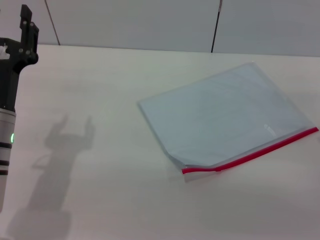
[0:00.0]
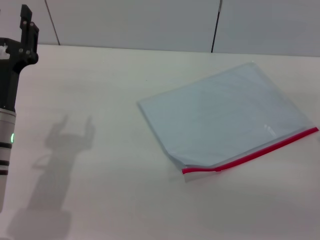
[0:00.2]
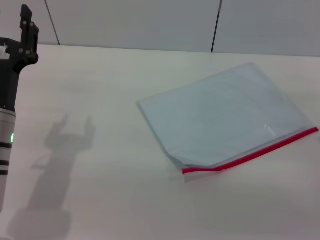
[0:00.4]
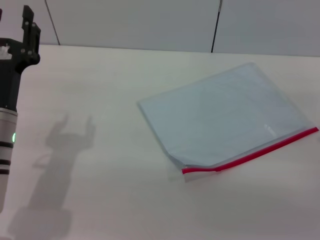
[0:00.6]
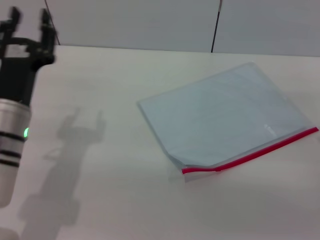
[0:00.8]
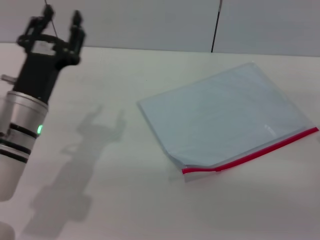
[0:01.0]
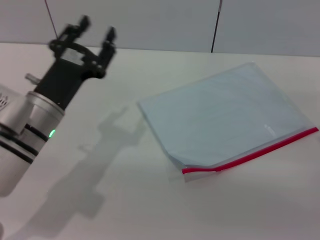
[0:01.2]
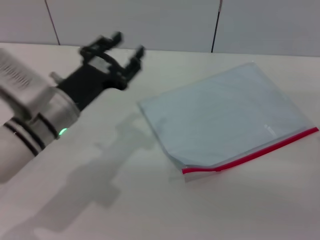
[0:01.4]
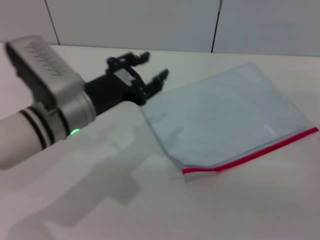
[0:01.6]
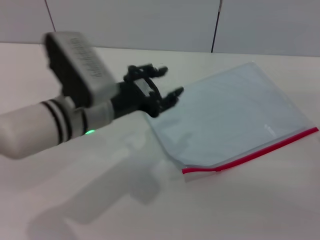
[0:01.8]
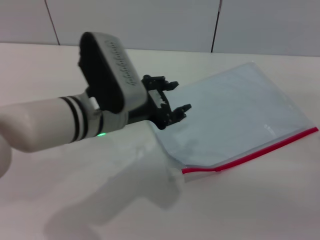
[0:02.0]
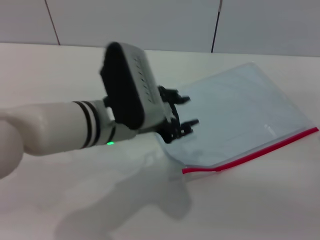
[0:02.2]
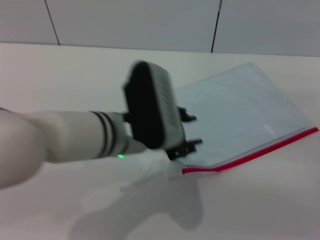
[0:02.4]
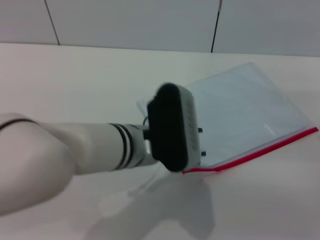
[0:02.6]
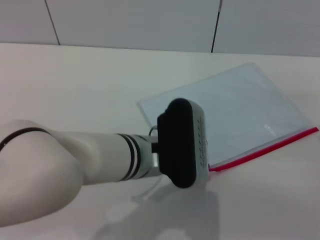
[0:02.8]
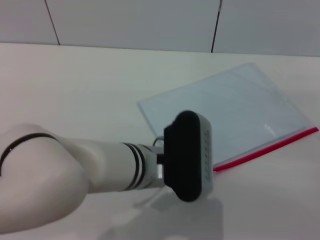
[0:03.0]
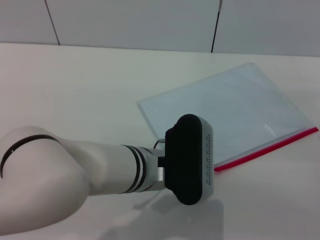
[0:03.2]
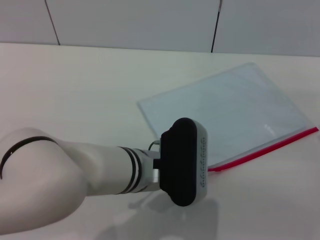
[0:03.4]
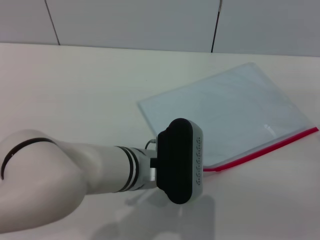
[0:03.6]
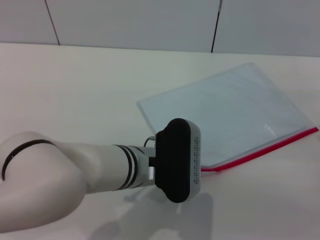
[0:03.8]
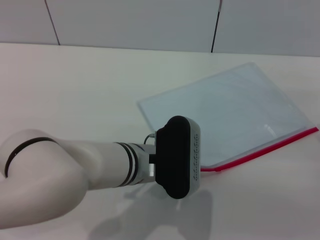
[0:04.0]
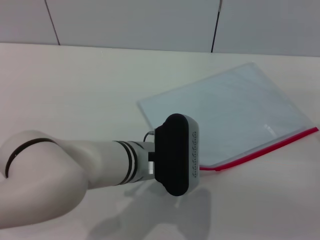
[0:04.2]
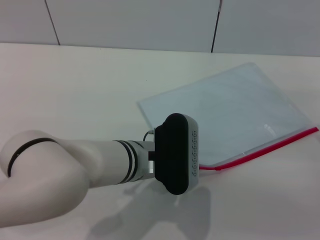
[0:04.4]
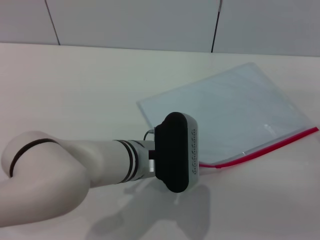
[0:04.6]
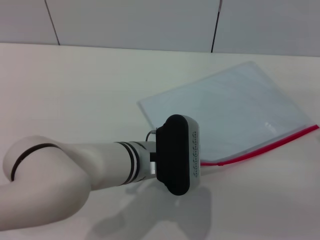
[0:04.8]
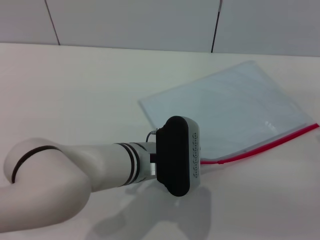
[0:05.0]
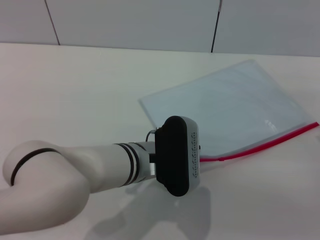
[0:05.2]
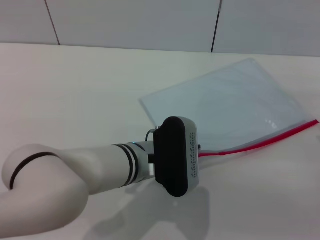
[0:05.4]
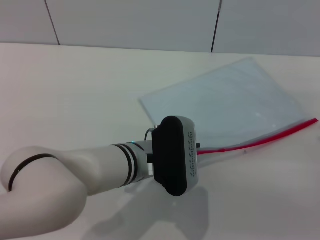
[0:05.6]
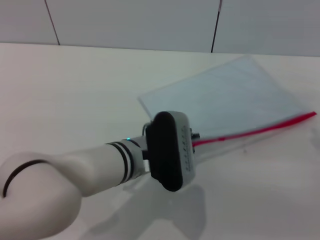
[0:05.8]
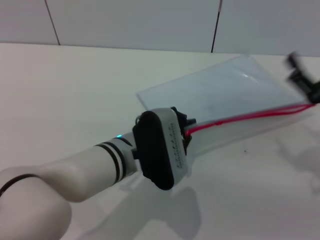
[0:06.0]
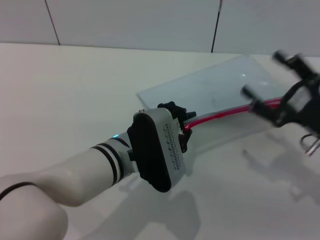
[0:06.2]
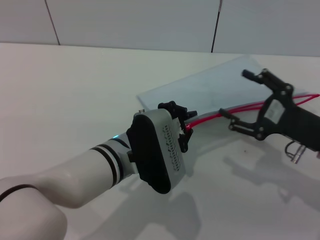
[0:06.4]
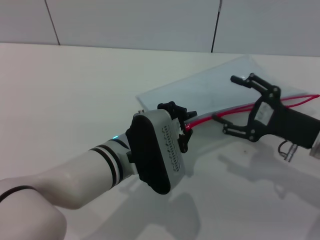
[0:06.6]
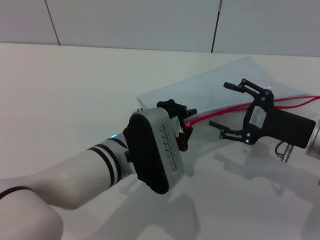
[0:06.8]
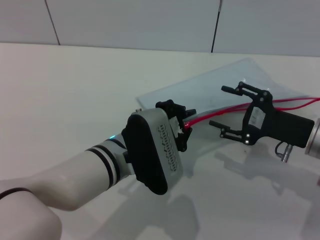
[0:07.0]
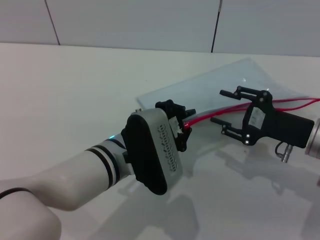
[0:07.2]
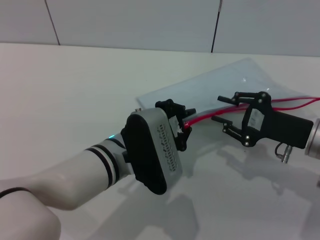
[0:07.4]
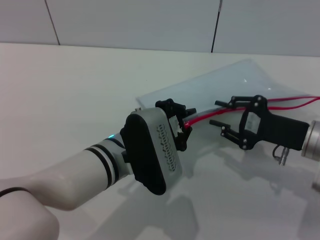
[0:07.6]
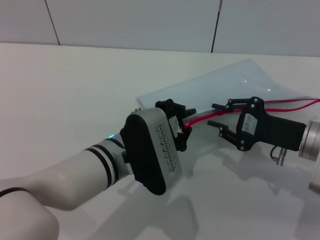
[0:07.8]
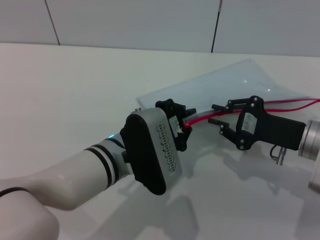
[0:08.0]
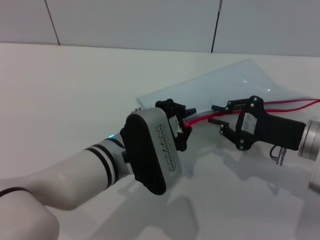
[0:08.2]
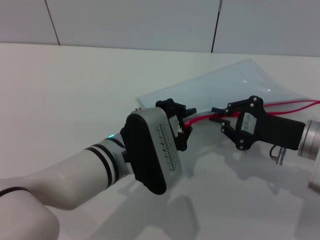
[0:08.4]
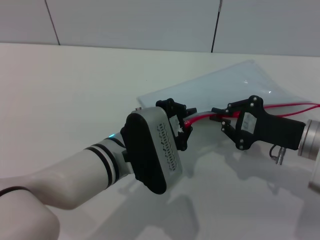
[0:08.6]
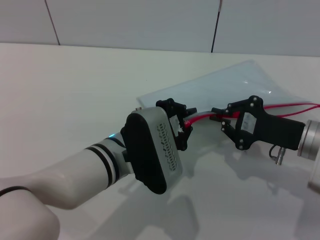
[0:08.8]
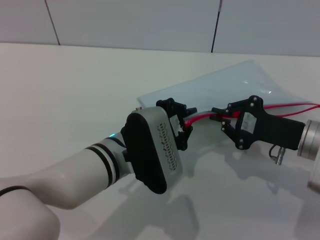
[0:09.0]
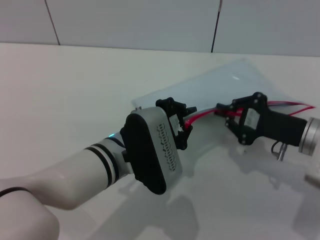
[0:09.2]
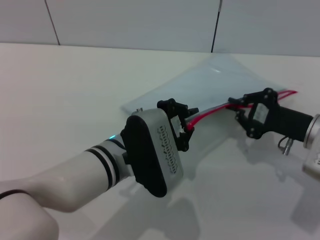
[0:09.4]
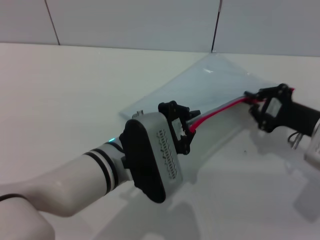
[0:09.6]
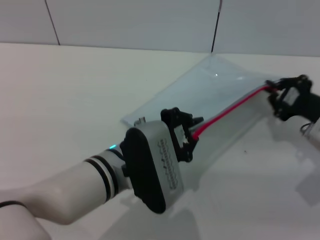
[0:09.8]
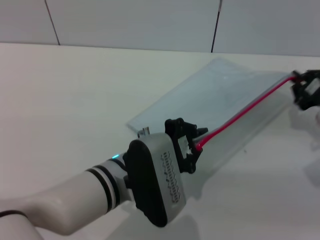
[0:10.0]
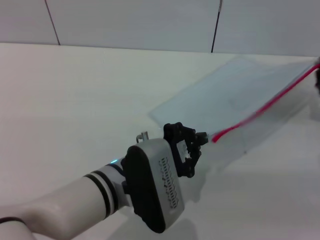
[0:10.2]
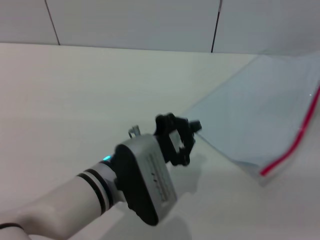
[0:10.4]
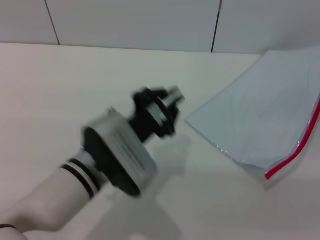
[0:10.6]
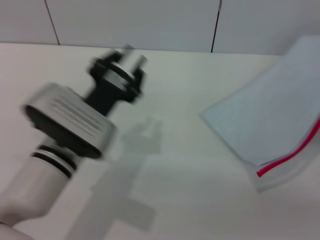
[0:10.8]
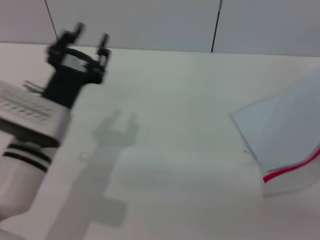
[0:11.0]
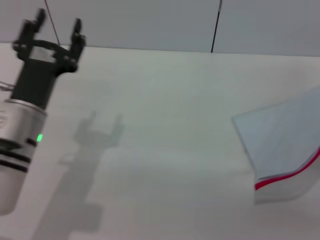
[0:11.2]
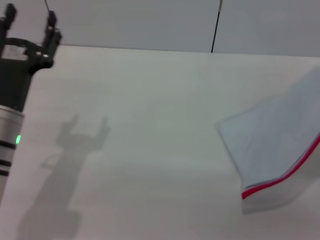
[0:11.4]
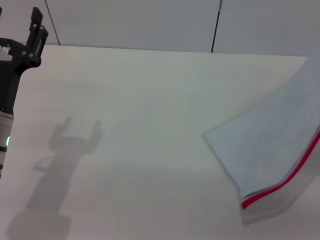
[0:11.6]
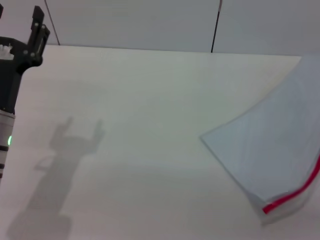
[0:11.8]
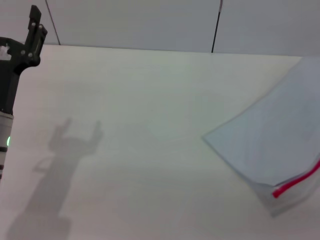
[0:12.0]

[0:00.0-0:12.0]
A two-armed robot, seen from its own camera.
Step, 0:00.0 to 0:06.0: Pick up the transparent plastic bag with the left gripper.
0:00.0 to 0:01.6: The left gripper travels to the right by approximately 5 cm.
0:01.6 to 0:03.0: The left gripper travels to the right by some 10 cm.
0:03.0 to 0:04.4: The grippers stay close to where they were, moving slightly.
0:04.4 to 0:06.0: The left gripper closes its fingers.
0:06.0 to 0:07.6: The right gripper changes place by approximately 5 cm, and closes.
0:07.6 to 0:09.0: The right gripper closes up.
0:09.0 to 0:10.4: The right gripper heads to the right and forward, covering about 10 cm.
0:10.4 to 0:12.0: The right gripper is displaced backward by approximately 10 cm, and opens up. Meanwhile the left gripper is displaced to the left by approximately 15 cm, and opens up.

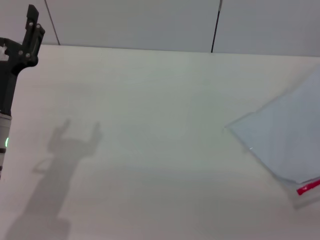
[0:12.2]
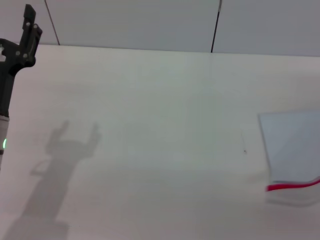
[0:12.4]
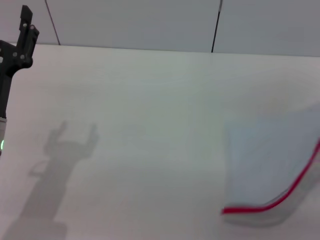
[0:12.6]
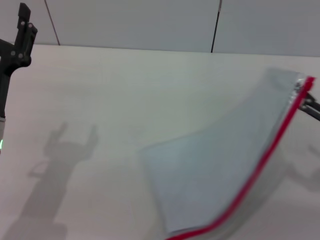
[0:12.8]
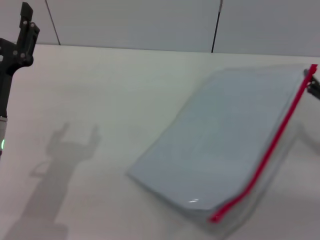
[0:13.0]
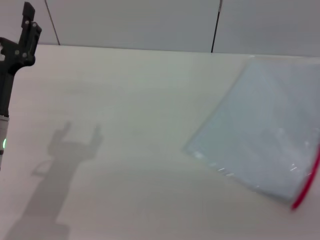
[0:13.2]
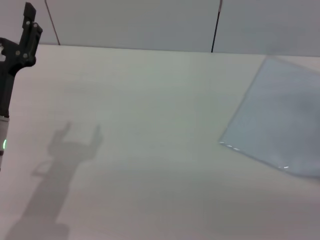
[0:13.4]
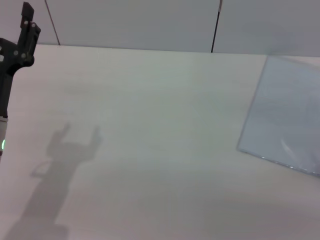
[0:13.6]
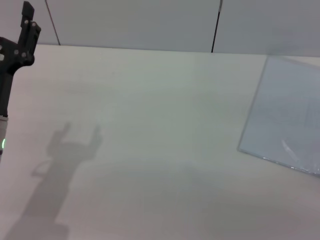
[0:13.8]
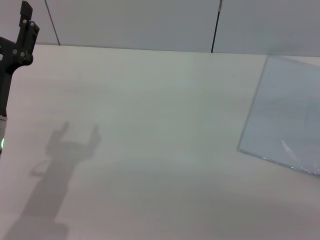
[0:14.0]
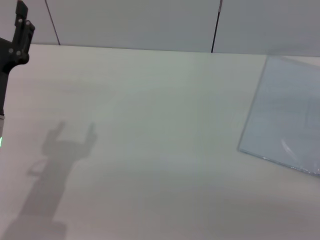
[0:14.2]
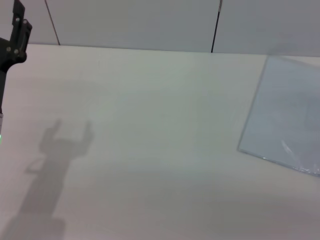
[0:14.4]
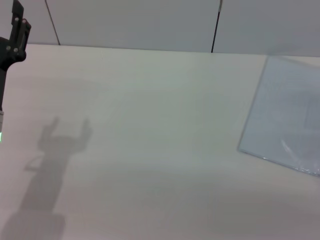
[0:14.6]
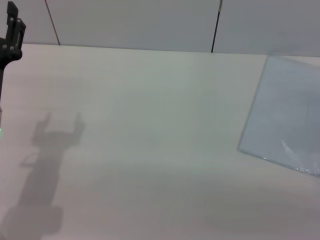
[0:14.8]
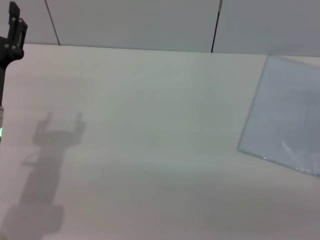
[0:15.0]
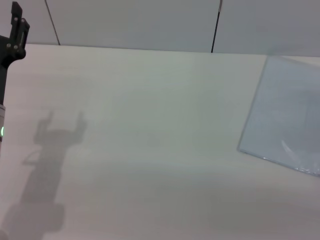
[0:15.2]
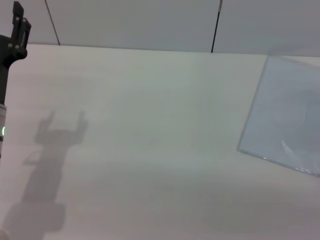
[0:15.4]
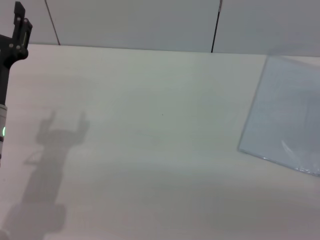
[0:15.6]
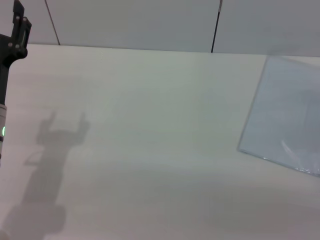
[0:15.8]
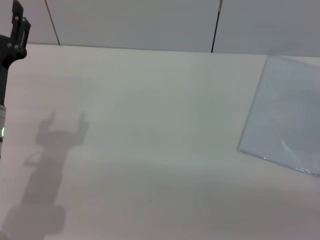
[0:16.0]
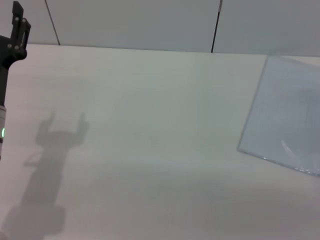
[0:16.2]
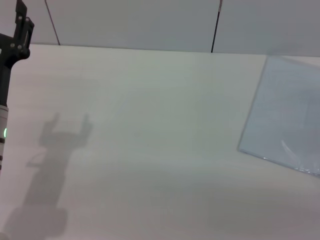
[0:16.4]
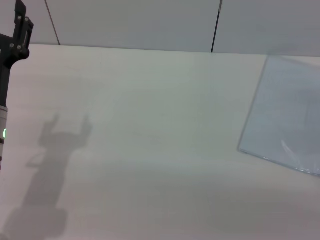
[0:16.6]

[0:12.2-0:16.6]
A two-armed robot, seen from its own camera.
Step, 0:12.4 to 0:14.6: Place the transparent plastic bag.
0:12.2 to 0:13.6: The right gripper moves forward and backward over approximately 10 cm, changing direction 2 times.
0:15.2 to 0:16.6: Neither gripper changes place.

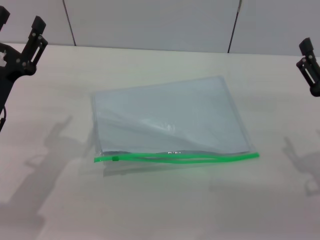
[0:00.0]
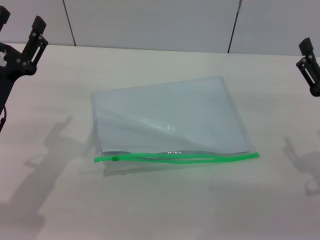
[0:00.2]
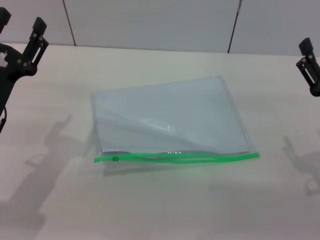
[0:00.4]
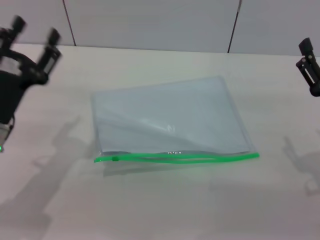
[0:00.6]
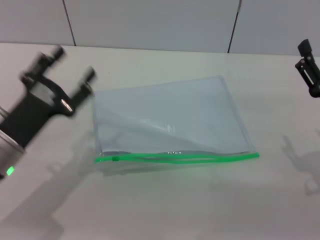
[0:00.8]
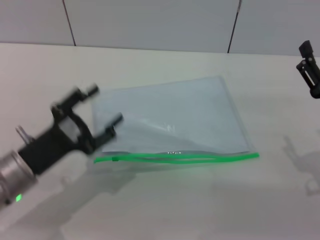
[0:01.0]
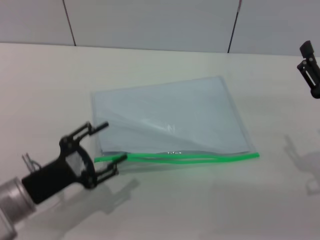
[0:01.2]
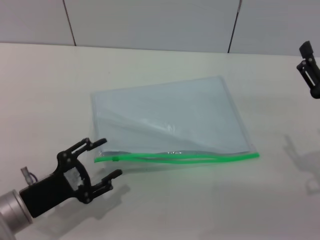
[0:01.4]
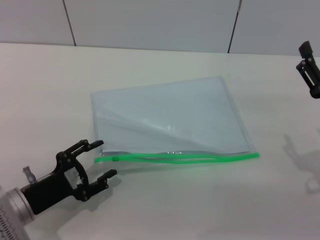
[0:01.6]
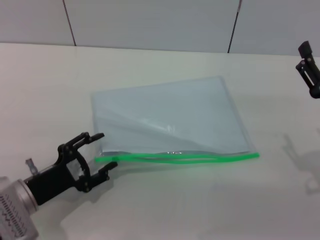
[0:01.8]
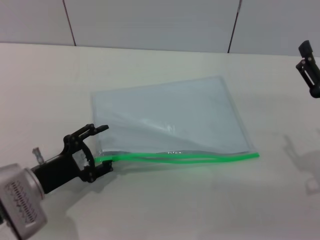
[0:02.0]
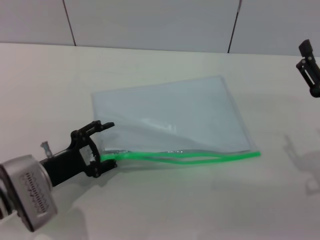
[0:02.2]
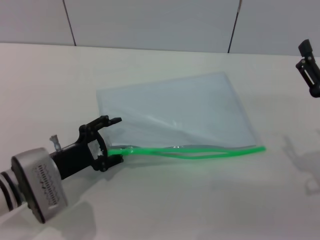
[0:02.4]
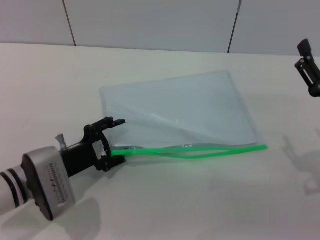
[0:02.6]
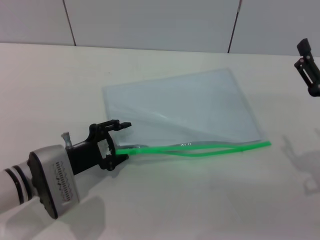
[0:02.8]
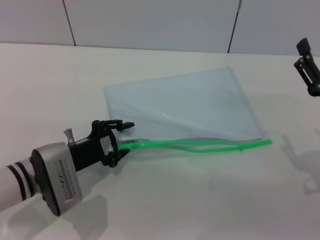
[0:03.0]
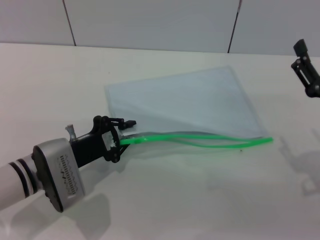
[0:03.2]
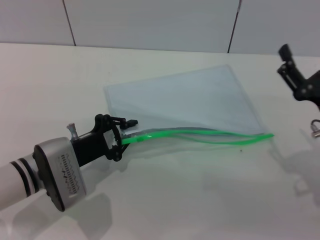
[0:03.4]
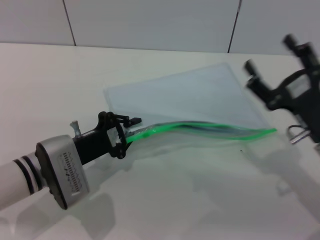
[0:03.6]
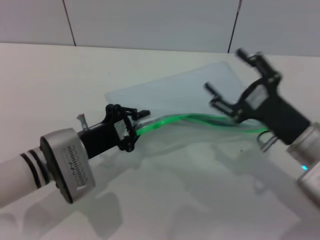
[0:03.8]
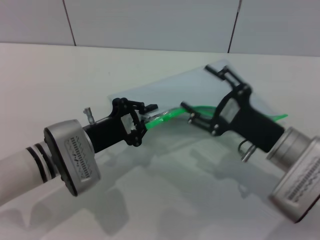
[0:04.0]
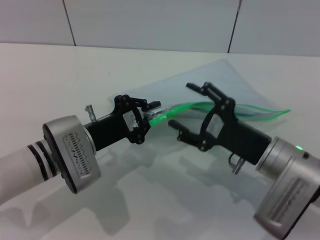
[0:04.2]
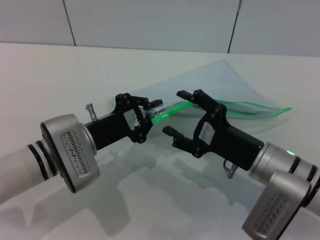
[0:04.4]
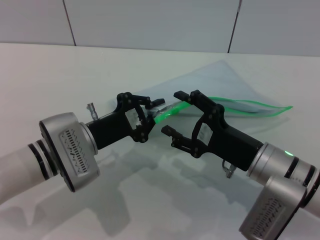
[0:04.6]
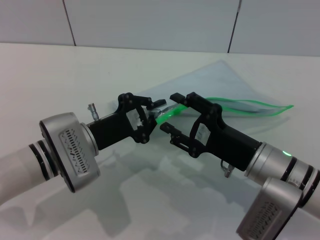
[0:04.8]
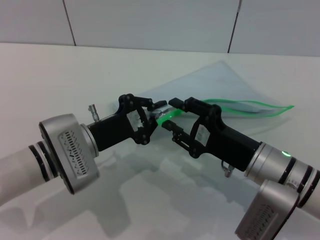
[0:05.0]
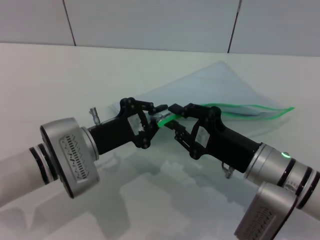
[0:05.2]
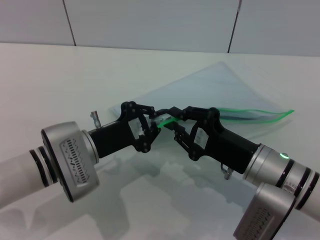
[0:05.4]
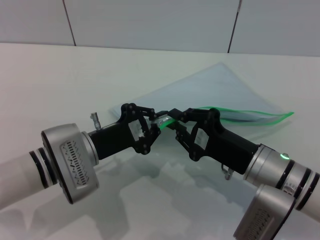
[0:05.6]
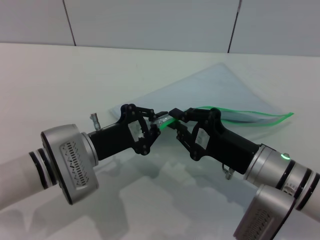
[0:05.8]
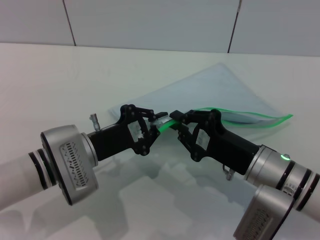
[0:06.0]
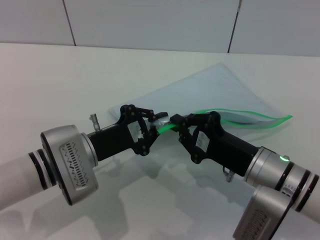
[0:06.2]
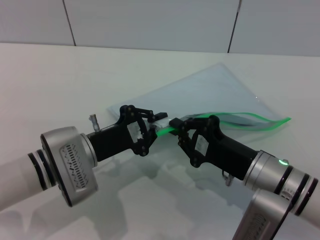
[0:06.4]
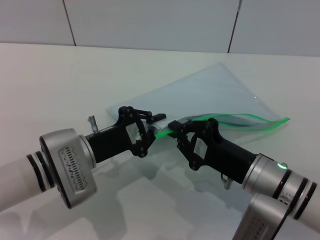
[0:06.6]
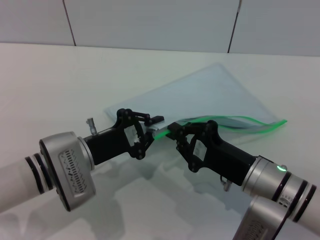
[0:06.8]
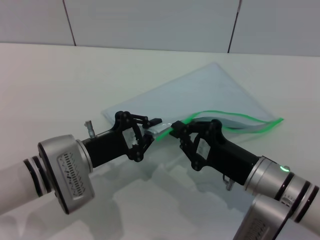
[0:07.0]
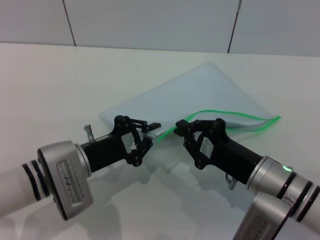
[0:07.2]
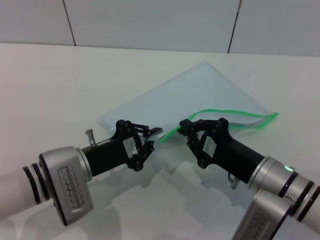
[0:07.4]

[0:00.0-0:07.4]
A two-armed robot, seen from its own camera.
Step, 0:00.0 to 0:03.6: Pick up the transparent plastic bag with the left gripper.
0:00.0 to 0:01.4: The left gripper moves downward and backward, roughly 10 cm.
0:01.4 to 0:03.0: The left gripper goes some 10 cm forward, and closes its fingers.
0:03.0 to 0:04.4: The right gripper travels to the left by about 10 cm; the left gripper moves some 5 cm, and closes.
0:04.4 to 0:06.0: The right gripper closes its fingers.
0:06.0 to 0:07.4: There are only small adjustments of the grippers.
